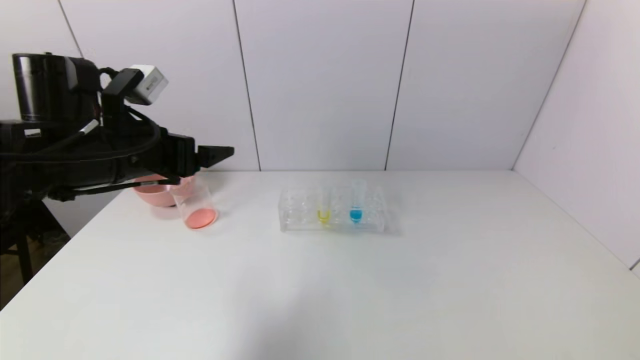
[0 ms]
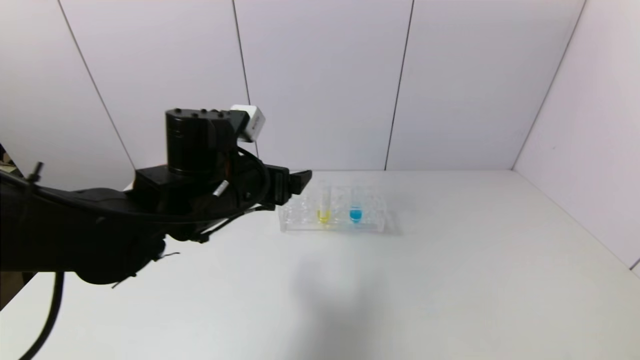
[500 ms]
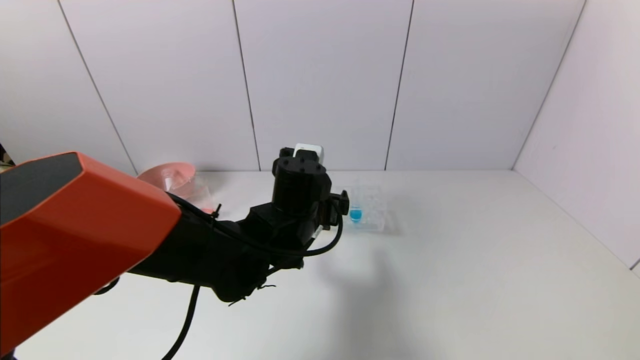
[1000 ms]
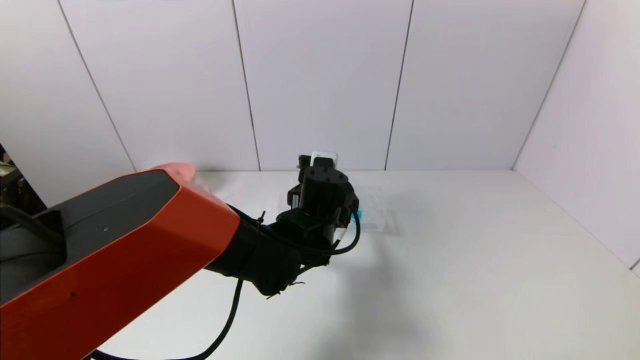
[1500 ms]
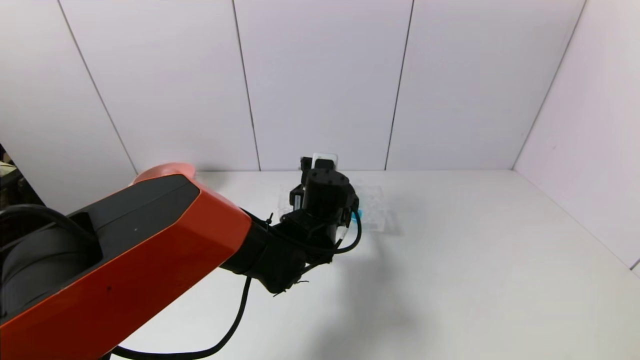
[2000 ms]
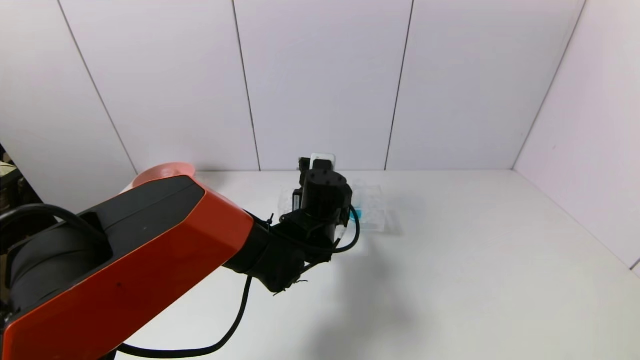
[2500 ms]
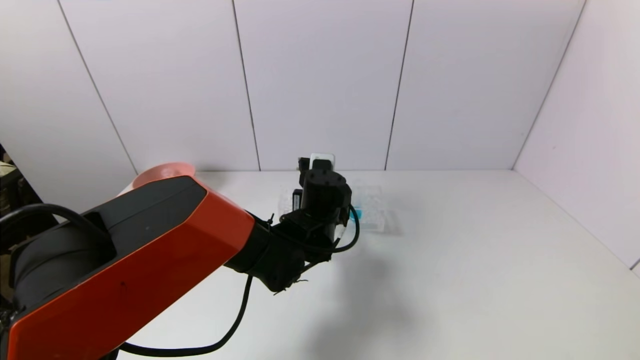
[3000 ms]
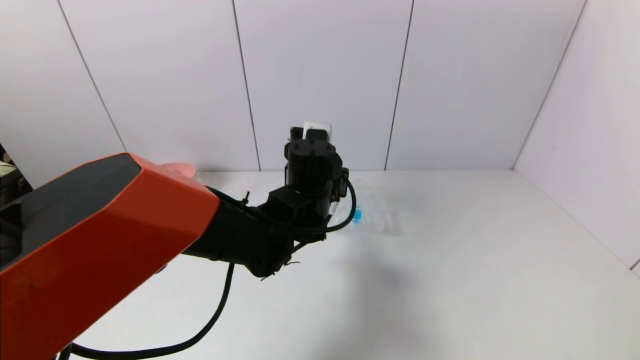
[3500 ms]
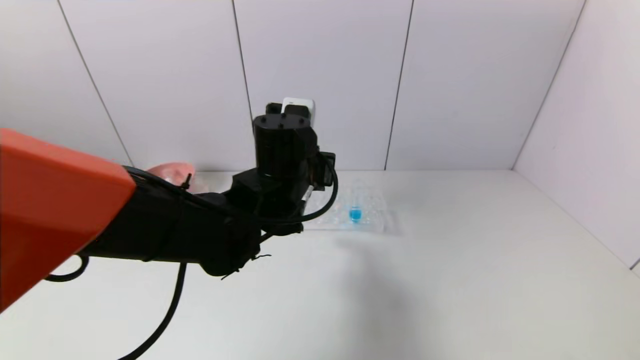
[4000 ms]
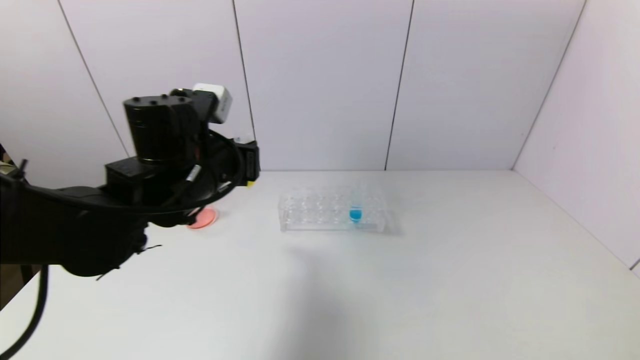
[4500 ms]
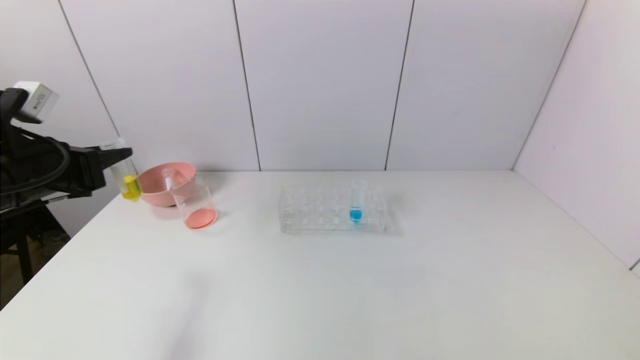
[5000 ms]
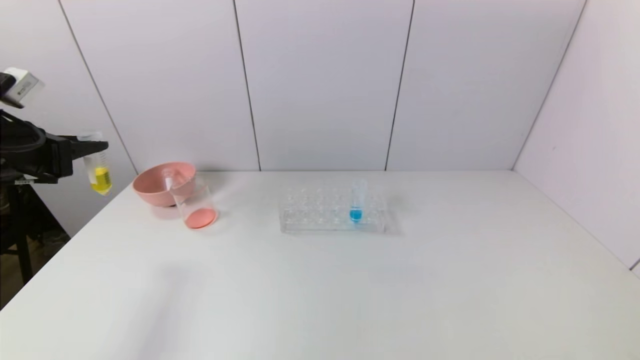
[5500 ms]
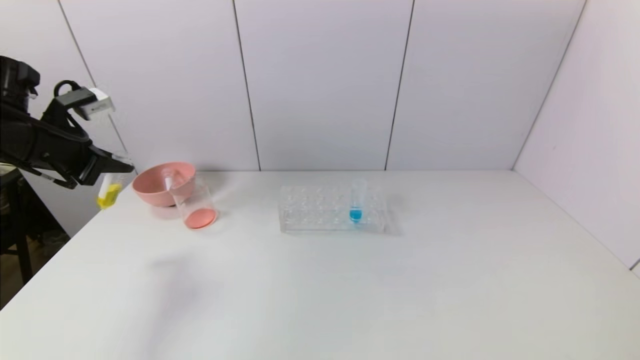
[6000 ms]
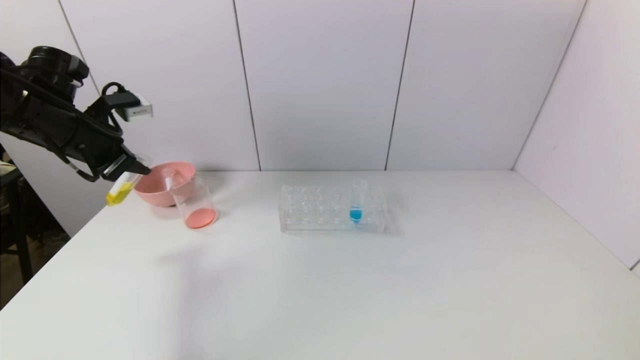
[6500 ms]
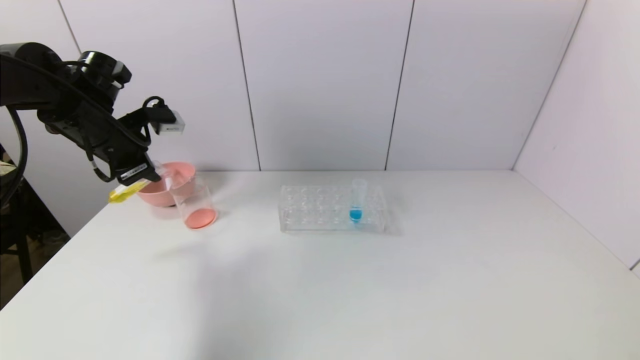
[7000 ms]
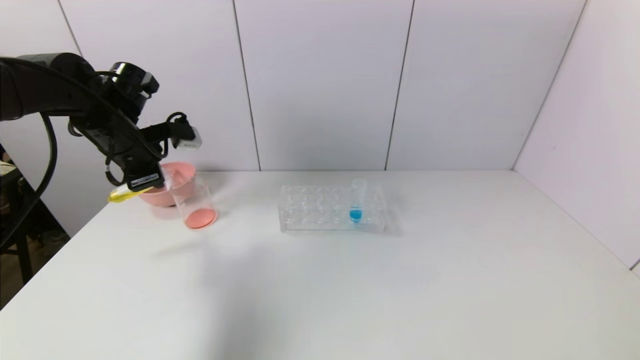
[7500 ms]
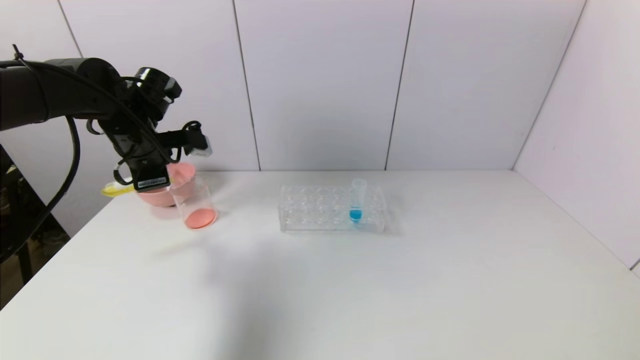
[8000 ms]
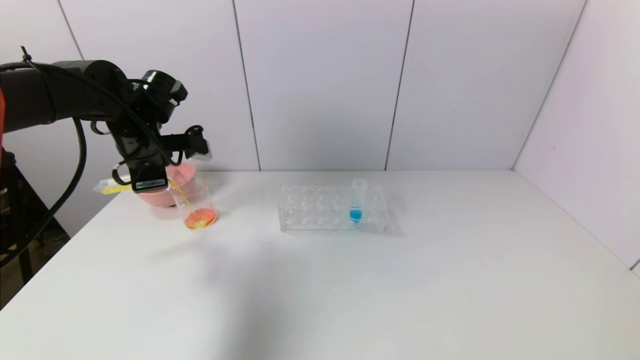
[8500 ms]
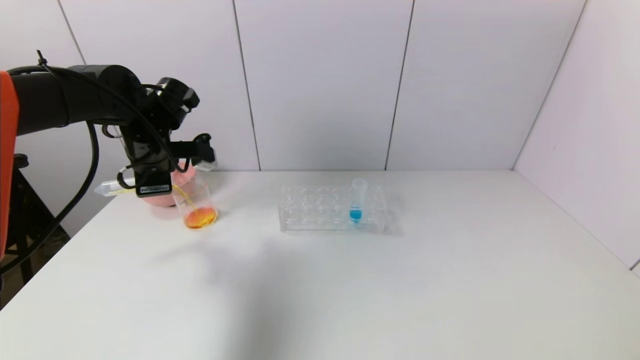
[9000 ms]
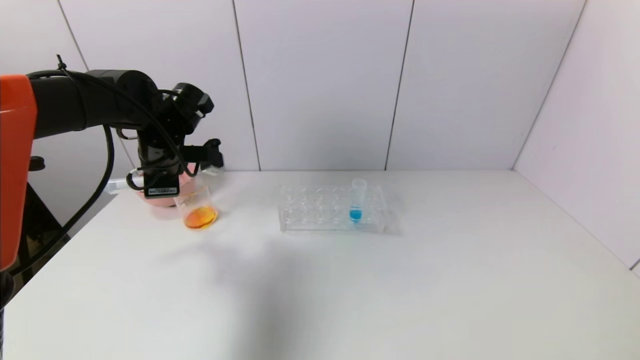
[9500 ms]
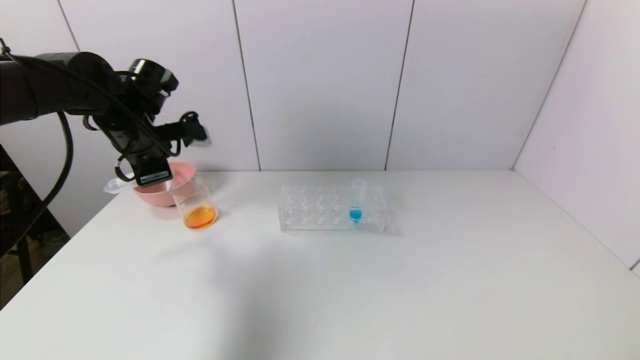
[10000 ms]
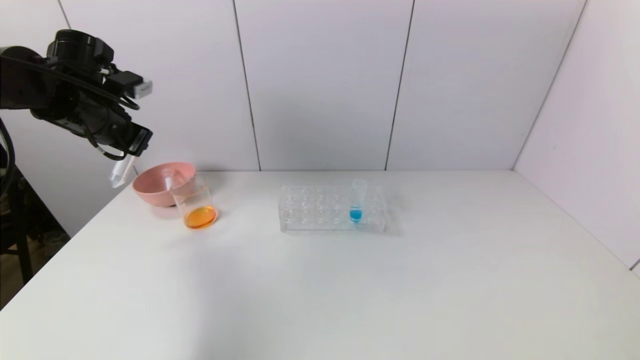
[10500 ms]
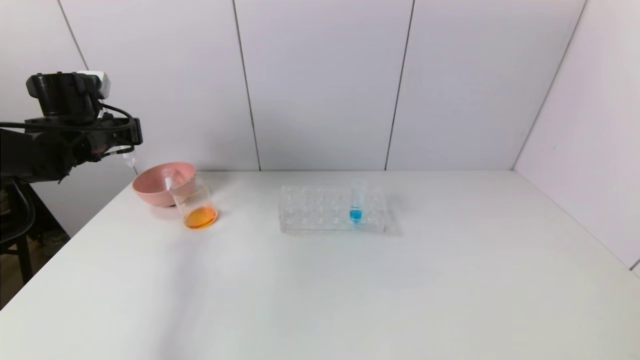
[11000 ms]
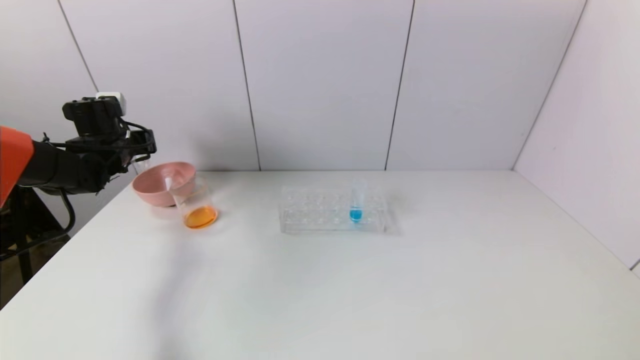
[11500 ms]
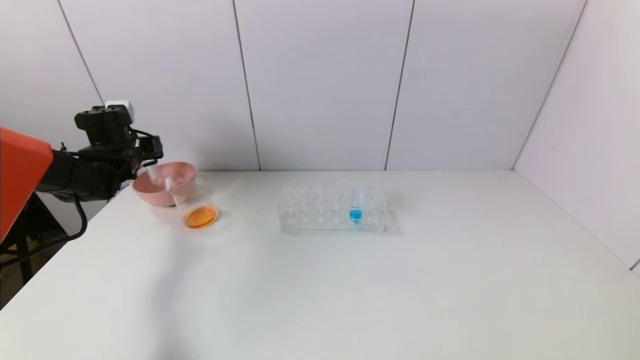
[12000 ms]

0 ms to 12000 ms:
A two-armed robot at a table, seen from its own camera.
Task of the whole recording: pick up the test tube with yellow pigment and the test tube with red pigment by grippers and pour them into the beaker.
Step, 0 ms to 2500 ms: Grasp the yellow reagent with the left gripper.
Step, 3000 ms to 9500 ms: Pour the yellow reagent into the graduated cylinder with the left gripper.
0 ms to 2000 ms: The left gripper travels to the right and downward by about 30 cm.
2000 ms to 4000 ms: The left gripper shifts some 10 cm upward, and closes up.
4000 ms to 6000 ms: The left gripper is displaced to the left by some 35 cm.
6000 ms to 8000 ms: The left gripper is displaced to the right and forward by approximately 10 cm.
8000 ms to 10000 ms: The grippers make only small movements.
10000 ms to 12000 ms: The left gripper is displaced to the left, downward and forward by about 15 cm.

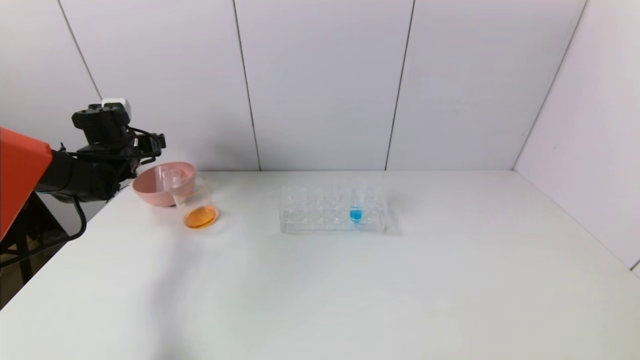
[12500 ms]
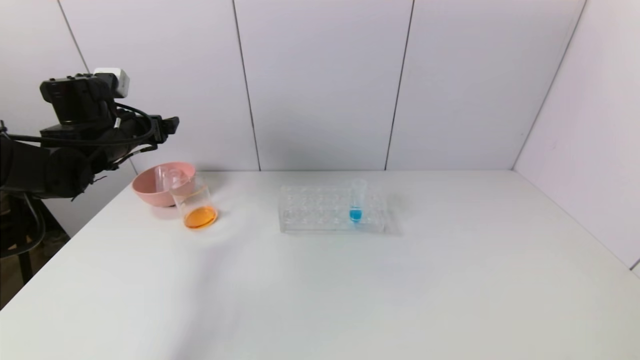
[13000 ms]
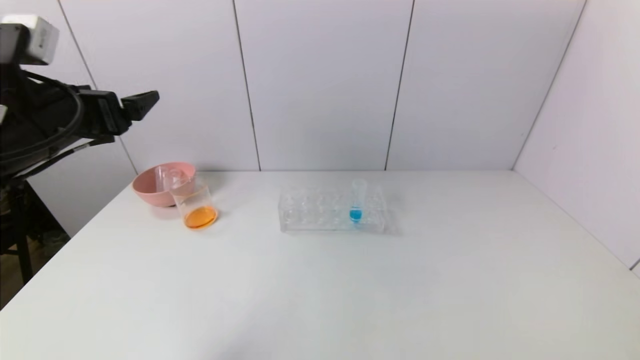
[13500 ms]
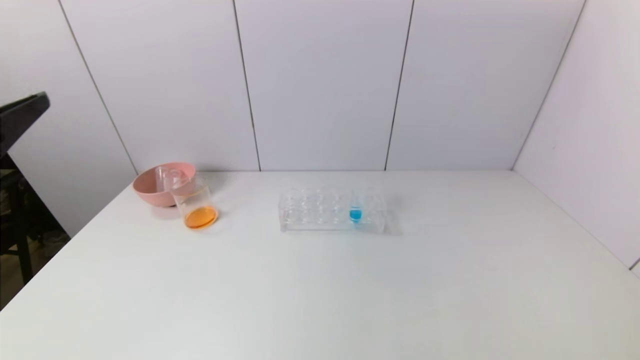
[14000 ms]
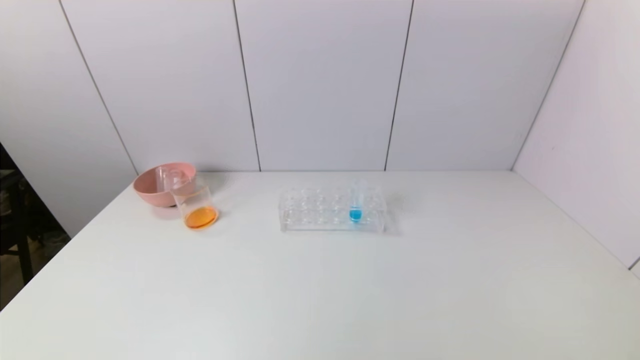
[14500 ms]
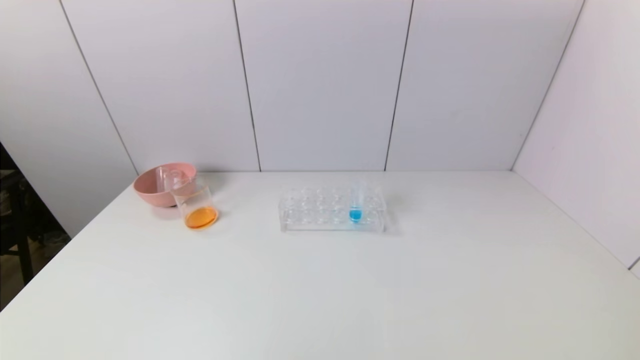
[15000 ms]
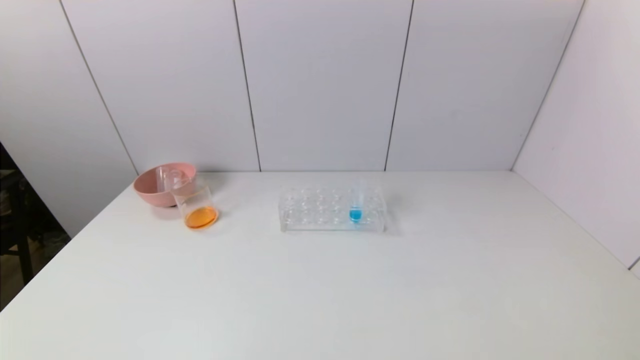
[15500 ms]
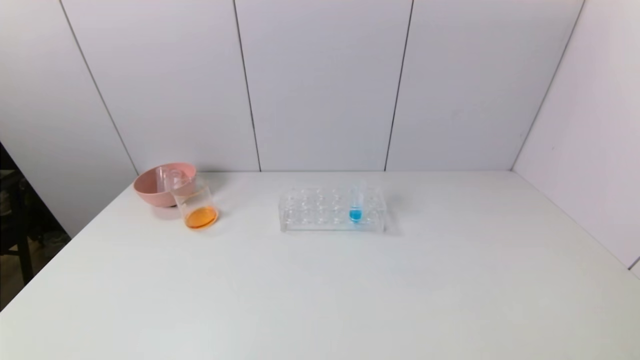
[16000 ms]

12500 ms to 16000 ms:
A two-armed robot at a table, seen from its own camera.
Task of the whole recording: pick up the test tube with yellow pigment and the test tube with red pigment by grippers and pour them into the beaker.
12500 ms to 14500 ms: The left gripper is displaced backward by approximately 50 cm.
